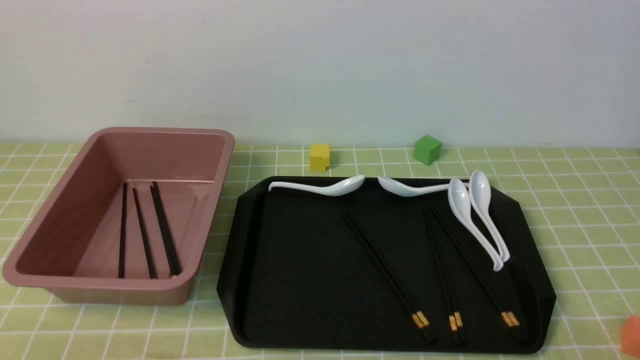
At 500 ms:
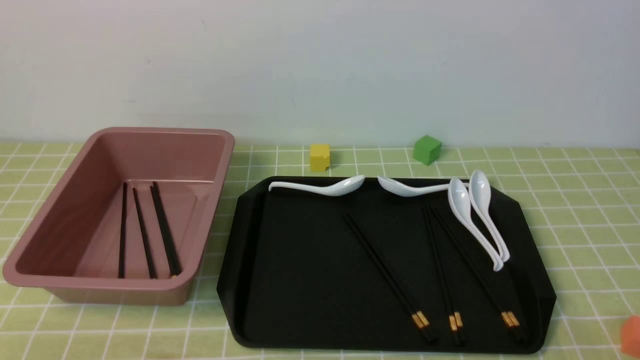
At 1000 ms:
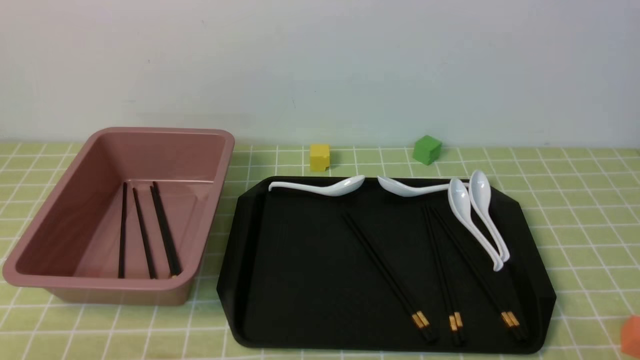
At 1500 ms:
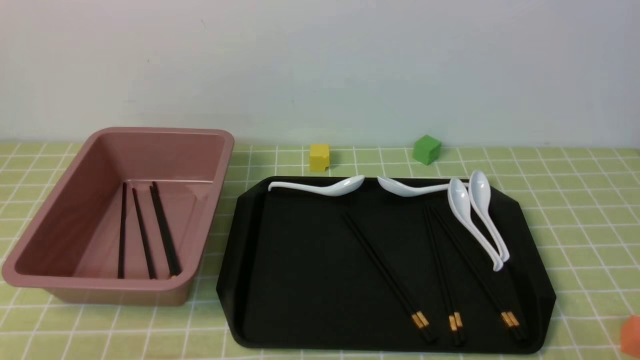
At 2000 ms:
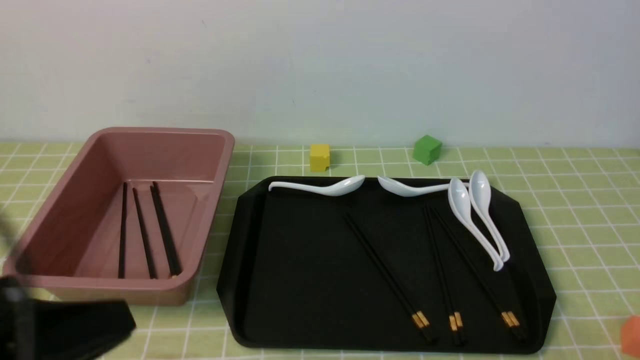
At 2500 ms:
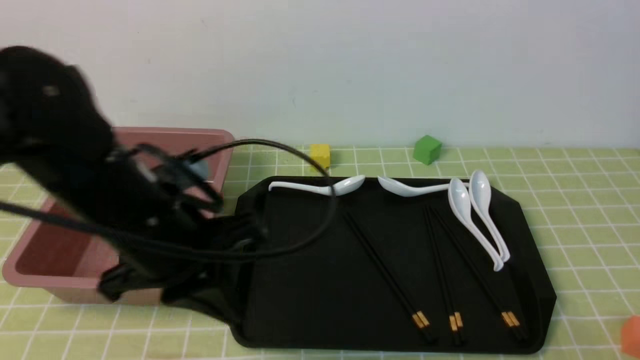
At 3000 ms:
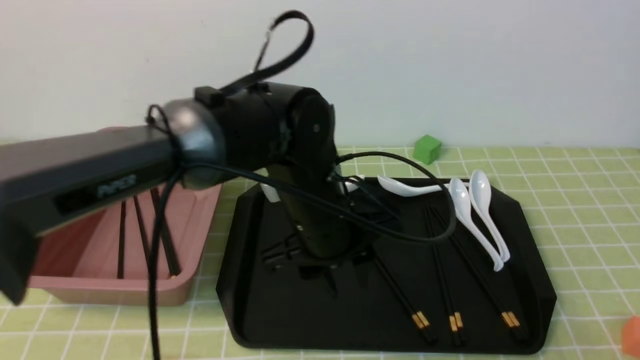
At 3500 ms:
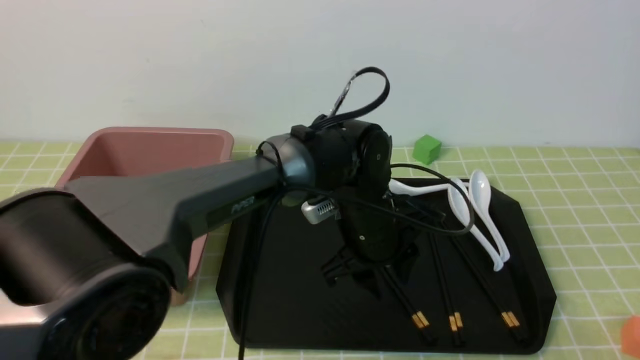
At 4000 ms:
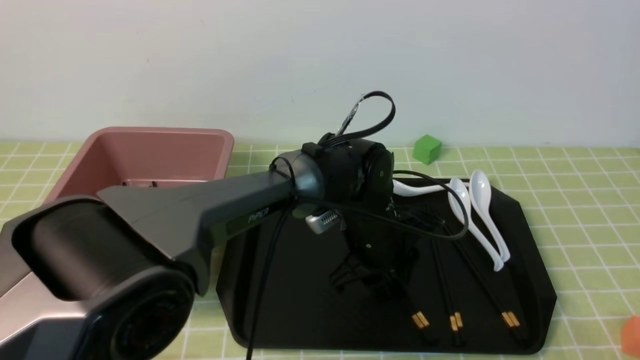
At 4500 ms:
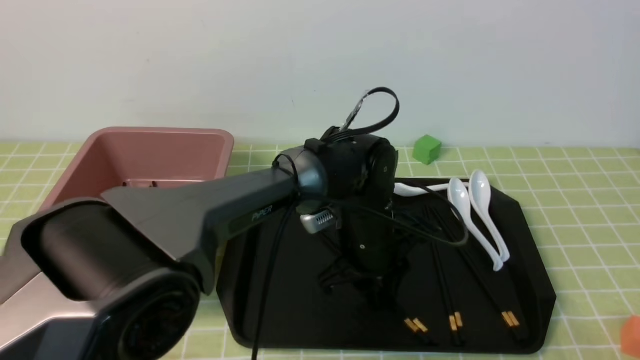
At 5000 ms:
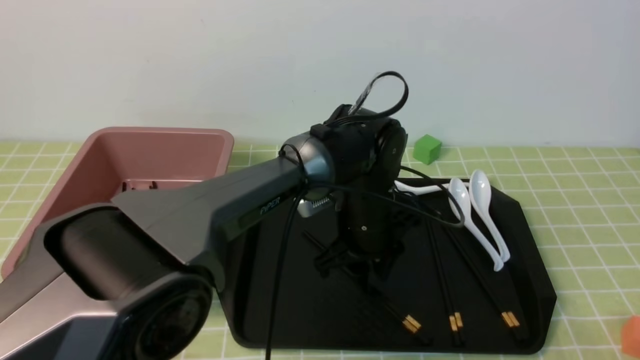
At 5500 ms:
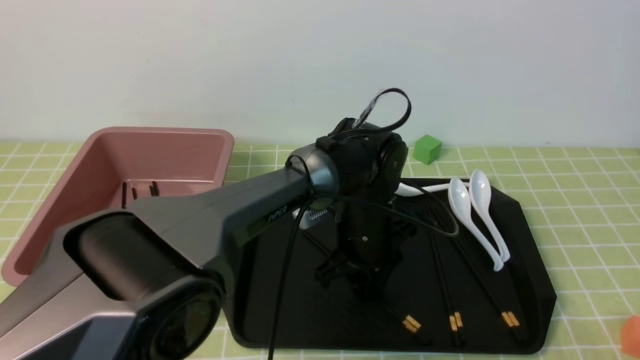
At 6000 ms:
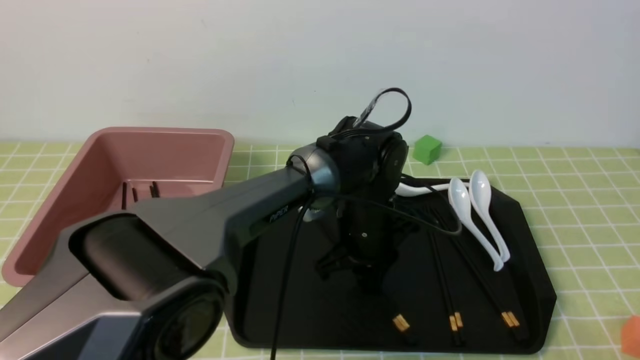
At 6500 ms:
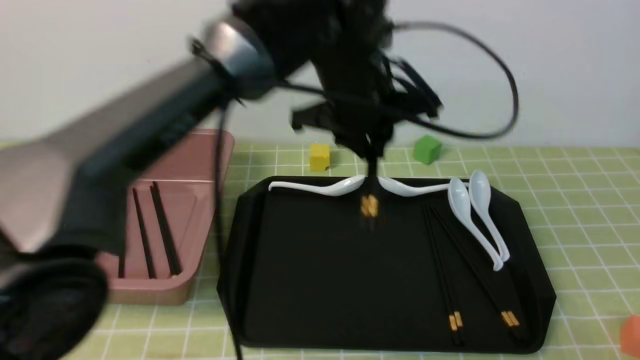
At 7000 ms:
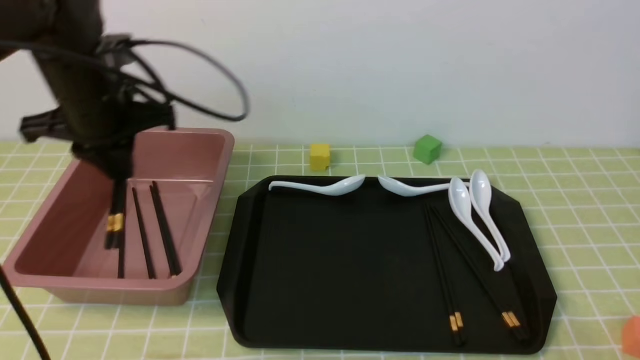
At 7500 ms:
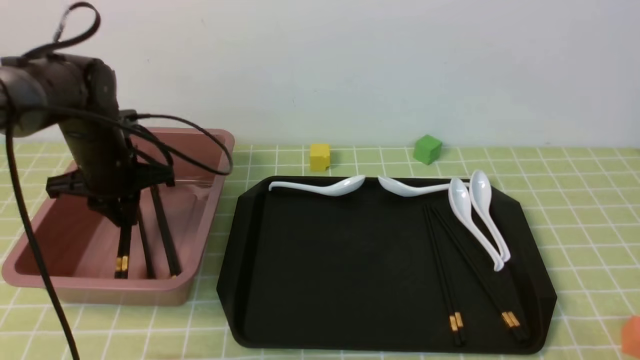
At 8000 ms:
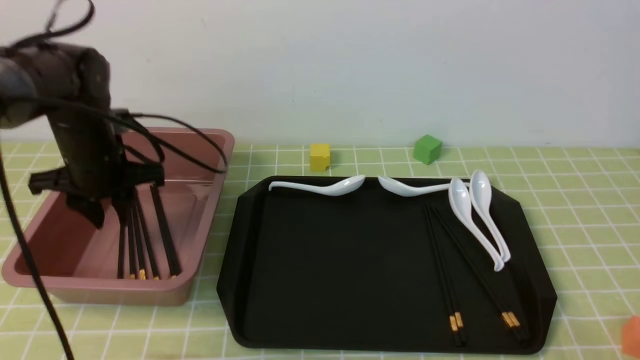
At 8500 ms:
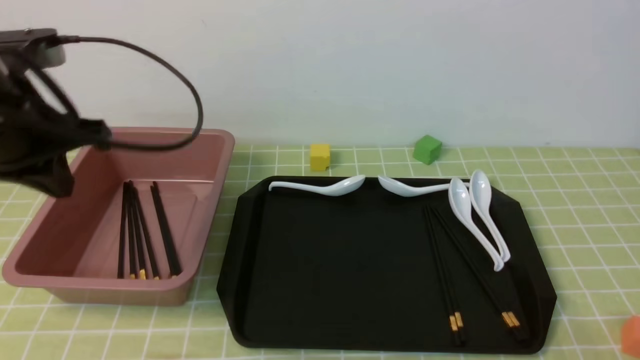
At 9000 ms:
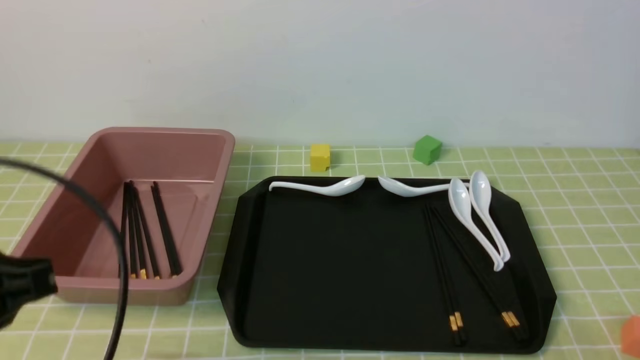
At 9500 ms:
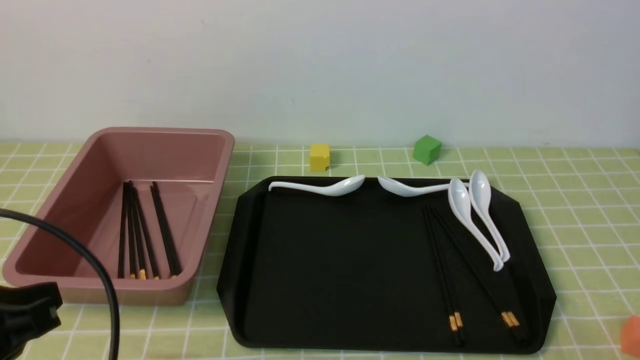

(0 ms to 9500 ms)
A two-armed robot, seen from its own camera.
Step, 0 ms - 6000 ms: use the left arm to grab a pair of chopsticks.
Step, 6500 ms - 8000 ms: use the left arm to put the chopsticks into the lunch box.
0 ms - 2000 ms: The left gripper goes some 15 cm upward.
2000 ms - 4000 ms: The left gripper goes about 40 cm forward, to the right and downward, and opens its fingers.
4000 ms - 5500 ms: The grippers move only a little.
5500 ms - 7500 ms: The left gripper heads to the left, covering about 30 cm, and closes up.
7500 ms - 9500 ms: The left gripper goes some 30 cm backward, and closes.

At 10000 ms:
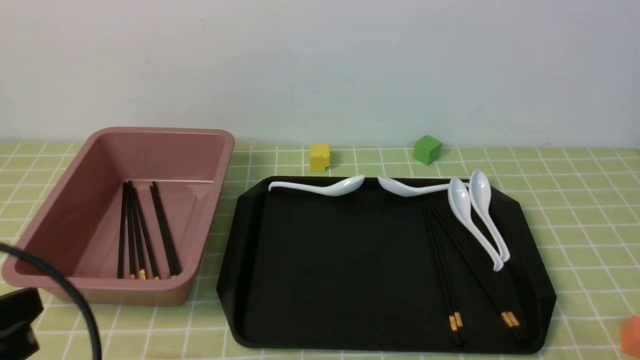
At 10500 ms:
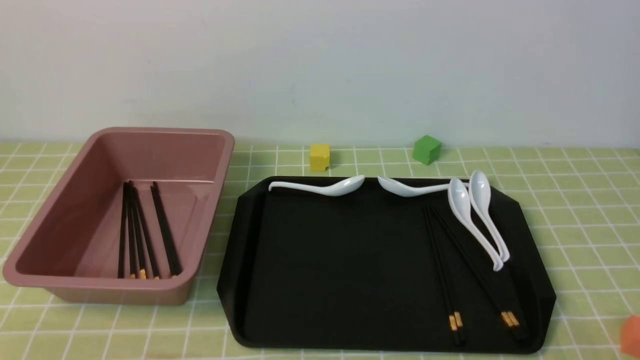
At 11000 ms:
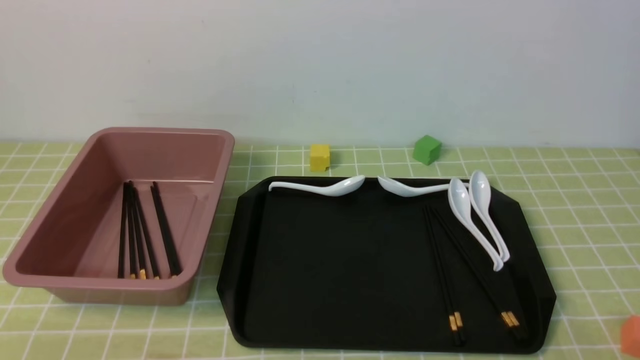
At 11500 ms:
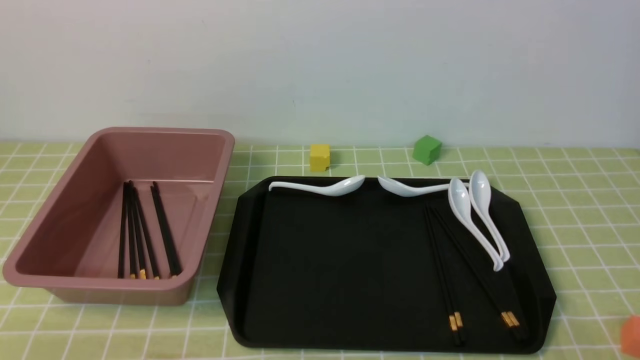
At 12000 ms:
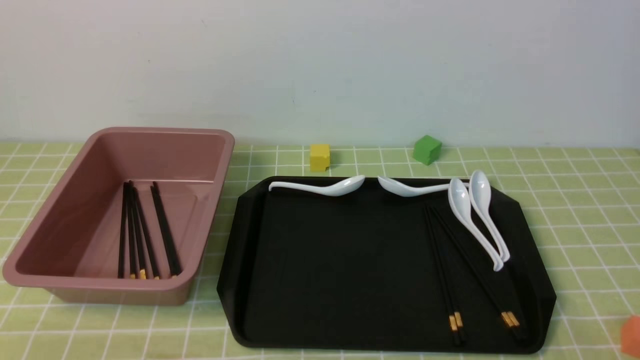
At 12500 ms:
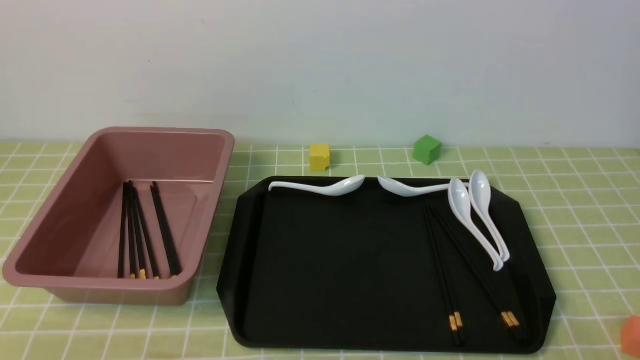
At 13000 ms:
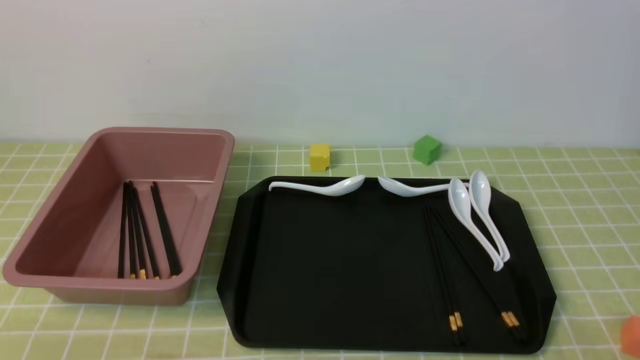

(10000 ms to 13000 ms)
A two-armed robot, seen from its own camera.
10000 ms - 11500 ms: The left gripper moves downward, approximately 10 cm.
11500 ms - 13000 ms: The two grippers keep their place.

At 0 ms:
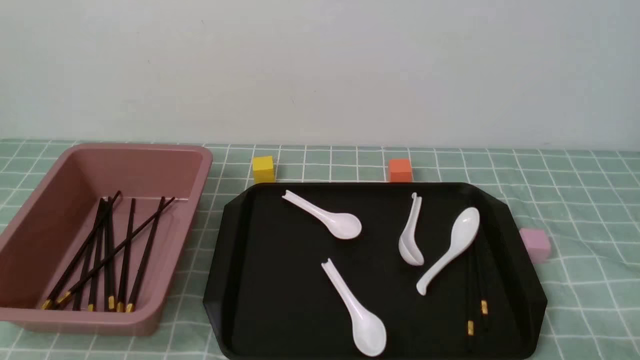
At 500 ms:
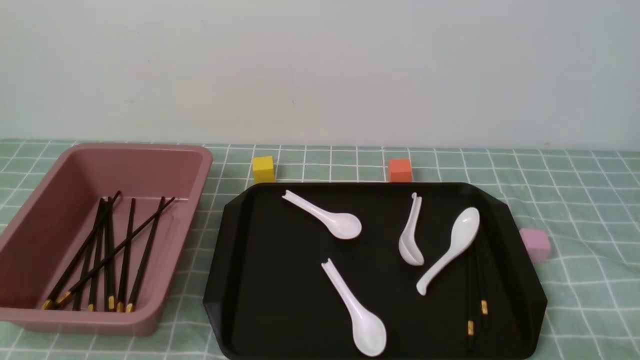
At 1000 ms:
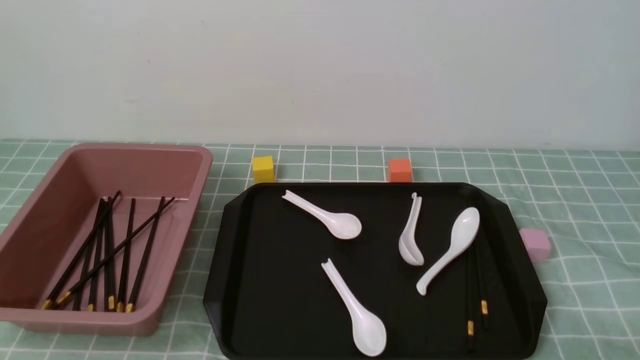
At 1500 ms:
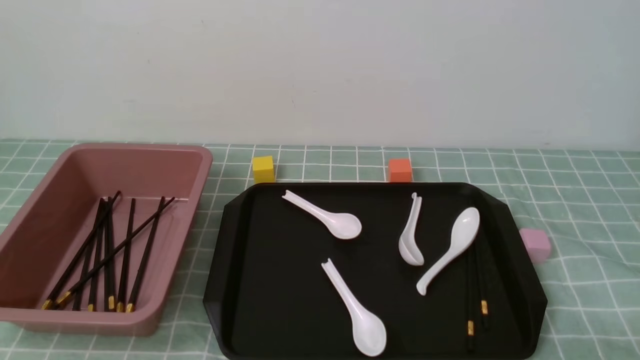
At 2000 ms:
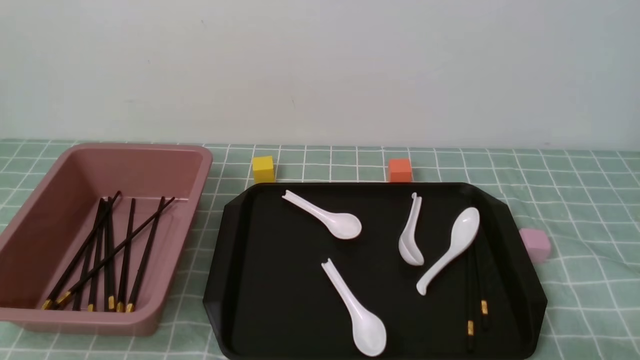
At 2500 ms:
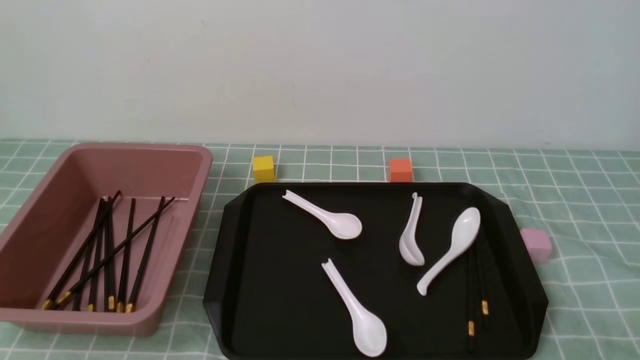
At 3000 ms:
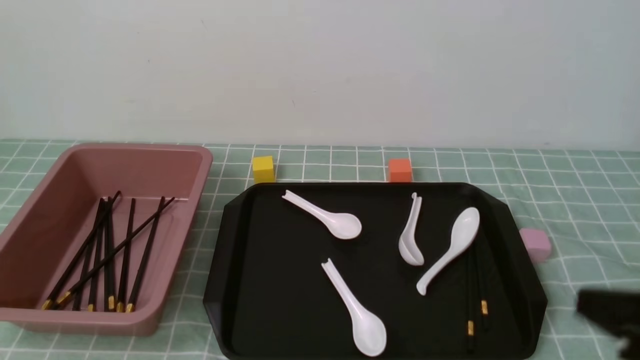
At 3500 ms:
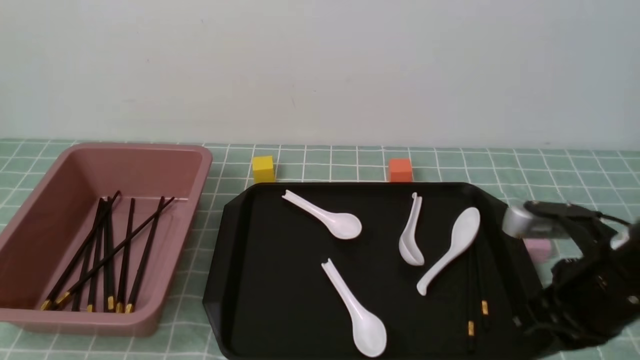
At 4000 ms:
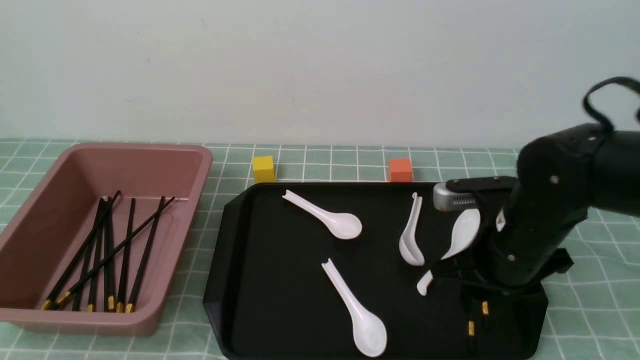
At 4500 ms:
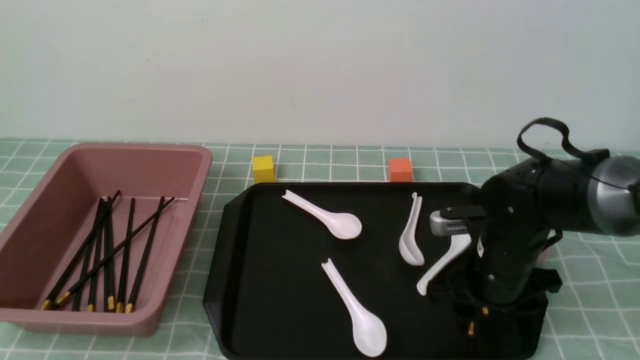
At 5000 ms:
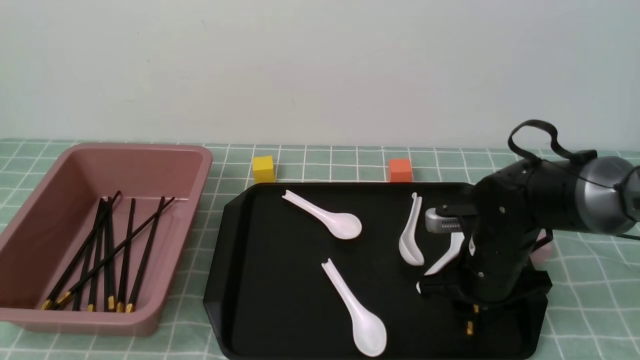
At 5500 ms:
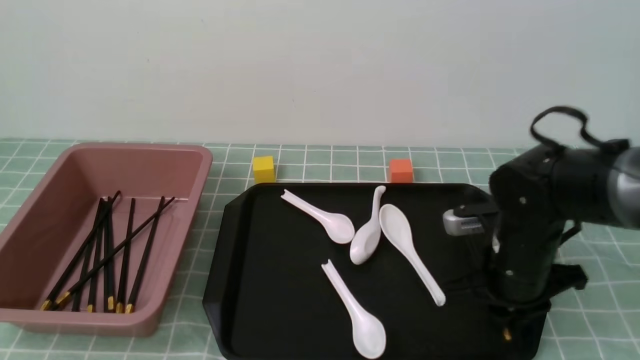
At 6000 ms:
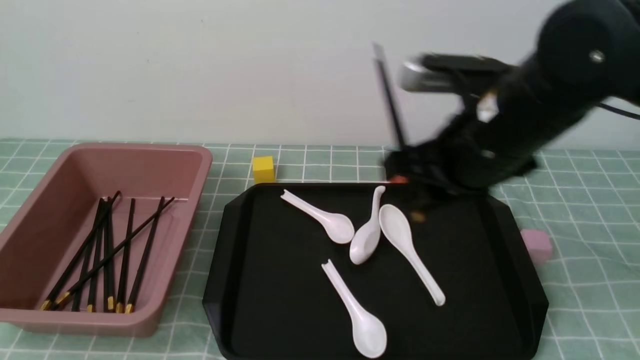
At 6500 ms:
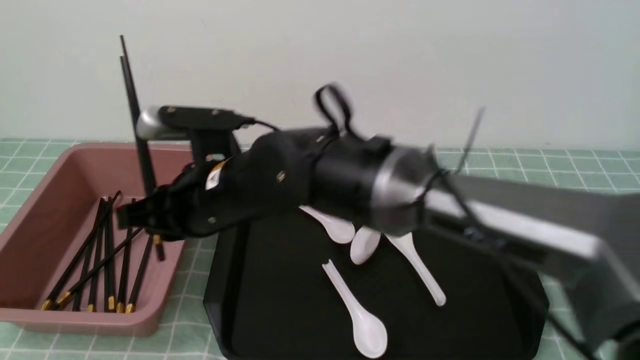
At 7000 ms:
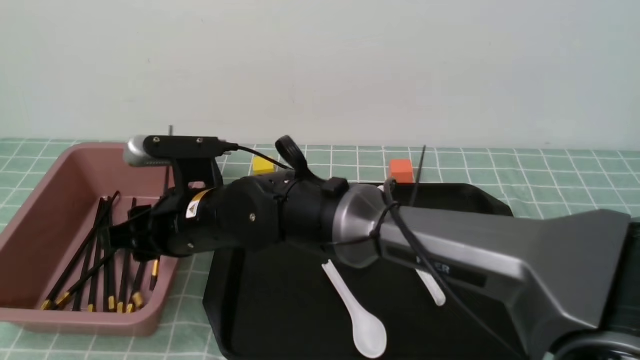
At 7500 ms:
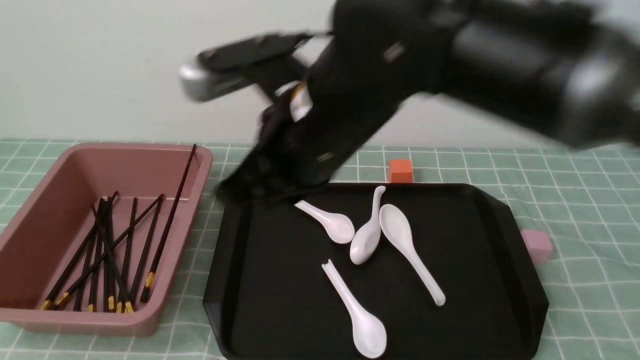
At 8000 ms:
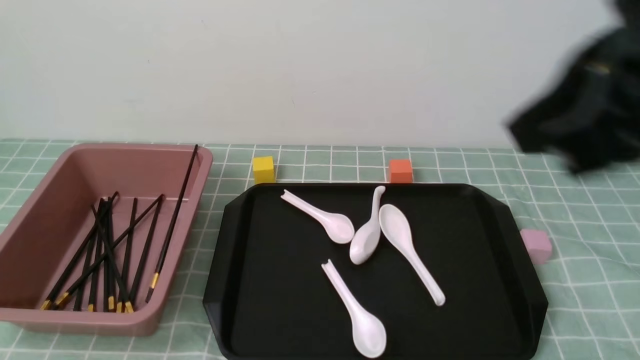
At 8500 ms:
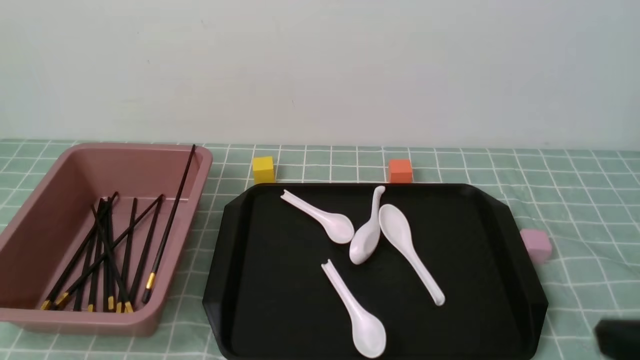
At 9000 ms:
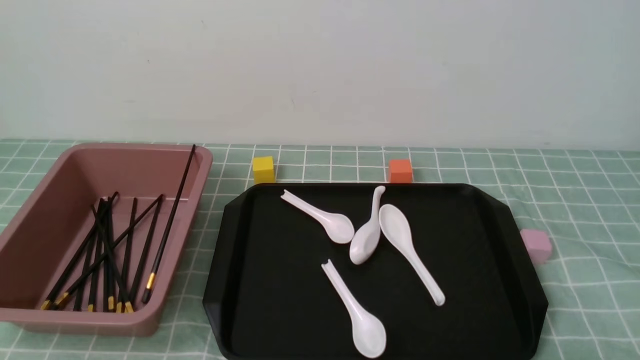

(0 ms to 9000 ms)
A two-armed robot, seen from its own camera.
Step, 0 ms - 5500 ms: use the right arm to grab a pair of chopsticks.
Step, 6000 ms - 7000 ms: use the right arm to put the chopsticks into the lunch box.
2000 ms - 4500 ms: The right gripper is displaced forward and to the left by roughly 30 cm, and opens up.
4500 ms - 7000 ms: The right gripper shifts some 30 cm to the left.
7000 ms - 9000 ms: The right gripper is displaced to the right and backward by about 40 cm, and closes up.
